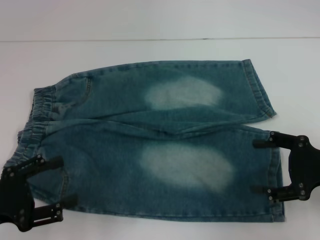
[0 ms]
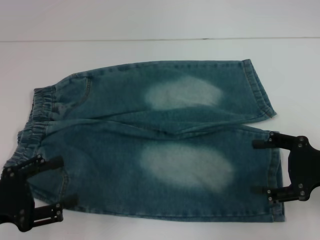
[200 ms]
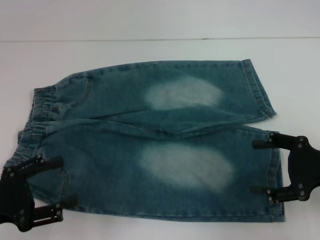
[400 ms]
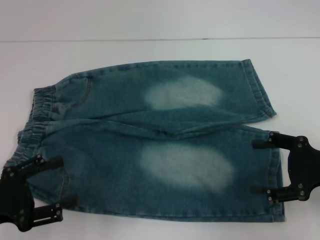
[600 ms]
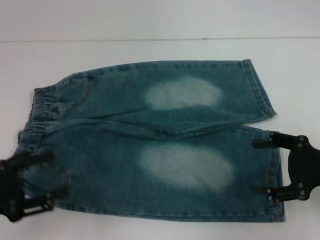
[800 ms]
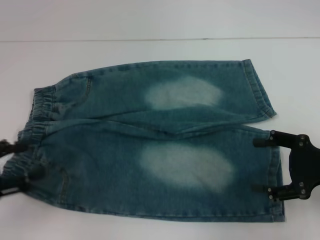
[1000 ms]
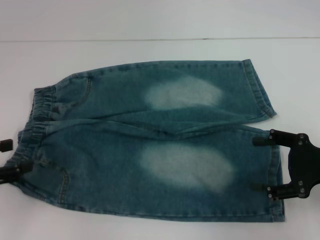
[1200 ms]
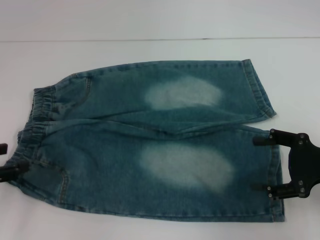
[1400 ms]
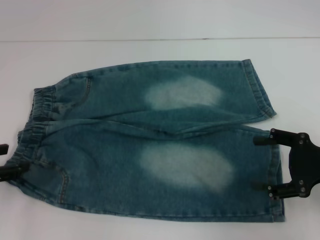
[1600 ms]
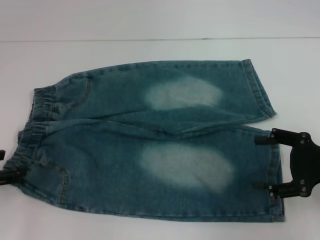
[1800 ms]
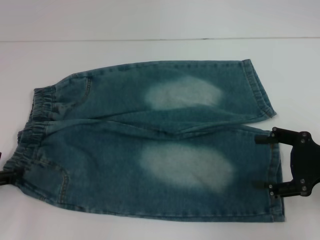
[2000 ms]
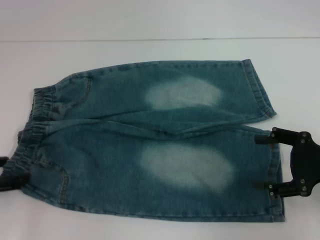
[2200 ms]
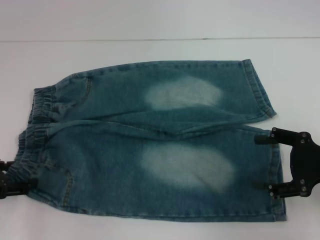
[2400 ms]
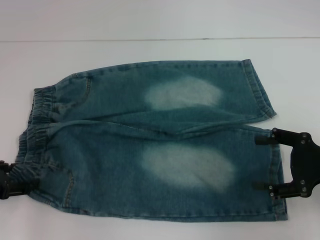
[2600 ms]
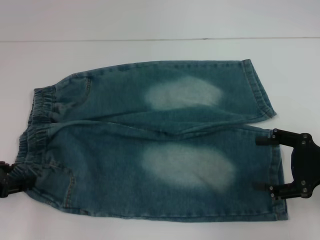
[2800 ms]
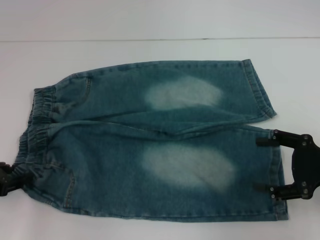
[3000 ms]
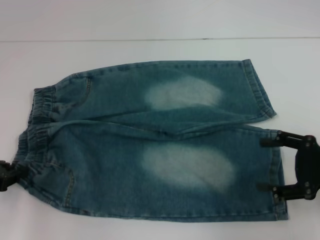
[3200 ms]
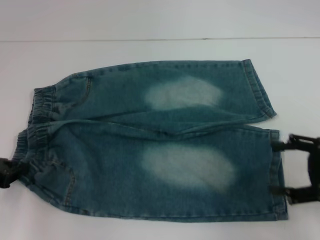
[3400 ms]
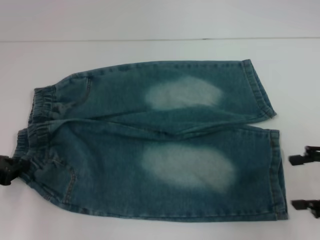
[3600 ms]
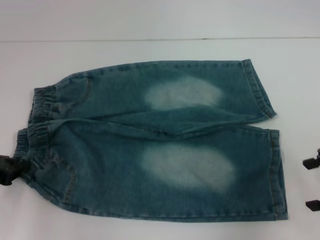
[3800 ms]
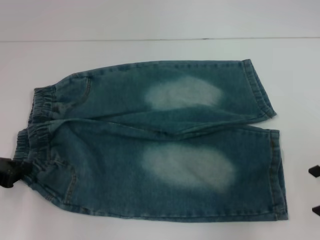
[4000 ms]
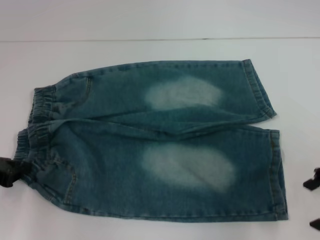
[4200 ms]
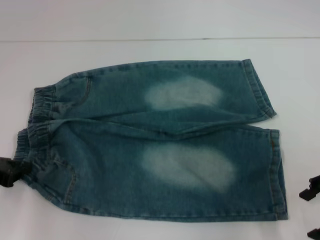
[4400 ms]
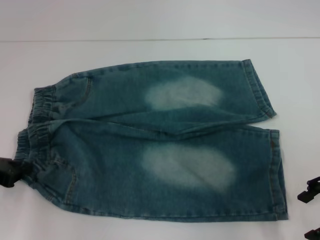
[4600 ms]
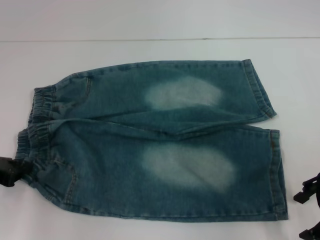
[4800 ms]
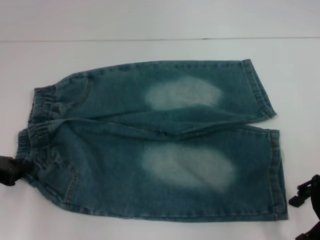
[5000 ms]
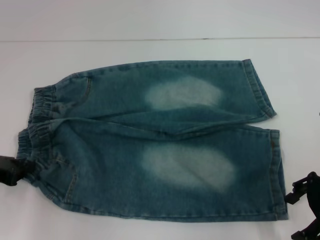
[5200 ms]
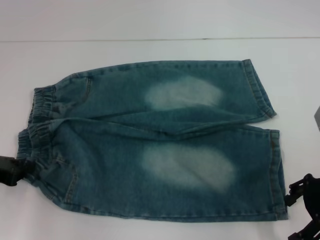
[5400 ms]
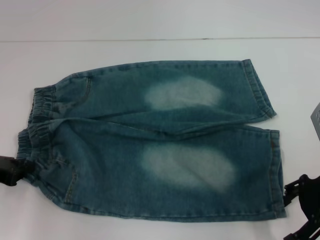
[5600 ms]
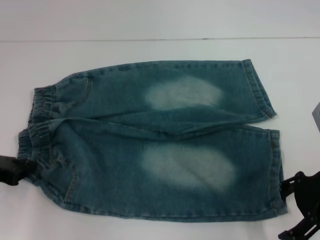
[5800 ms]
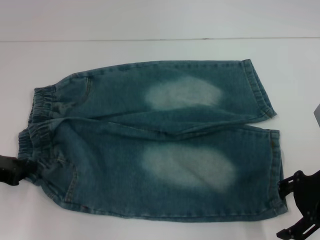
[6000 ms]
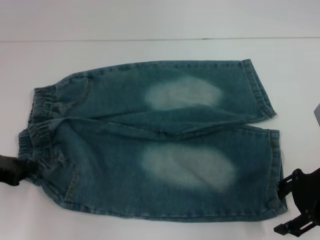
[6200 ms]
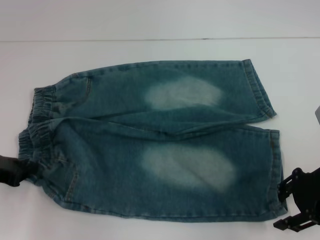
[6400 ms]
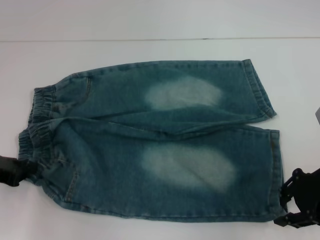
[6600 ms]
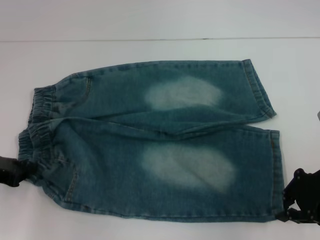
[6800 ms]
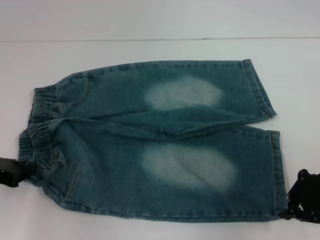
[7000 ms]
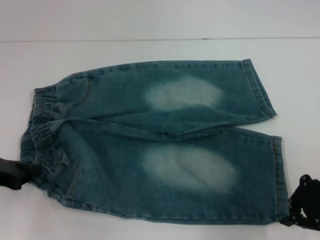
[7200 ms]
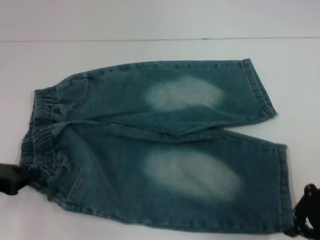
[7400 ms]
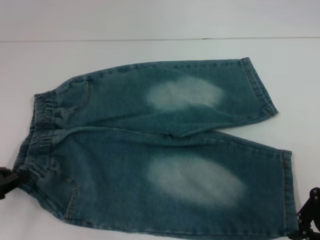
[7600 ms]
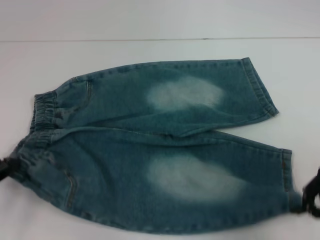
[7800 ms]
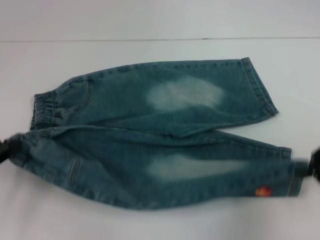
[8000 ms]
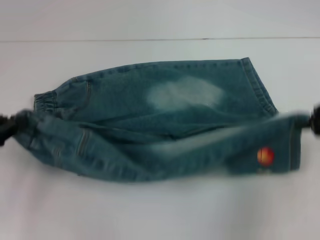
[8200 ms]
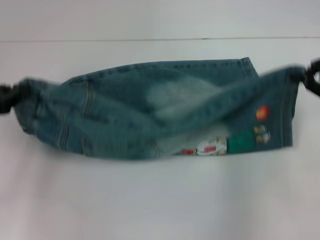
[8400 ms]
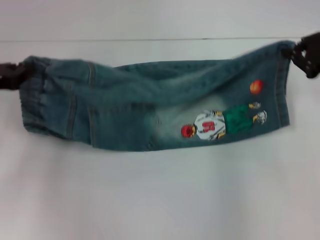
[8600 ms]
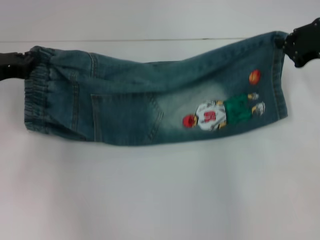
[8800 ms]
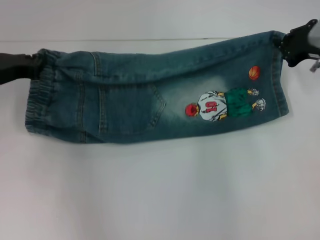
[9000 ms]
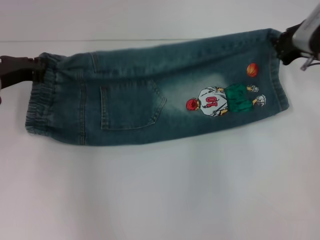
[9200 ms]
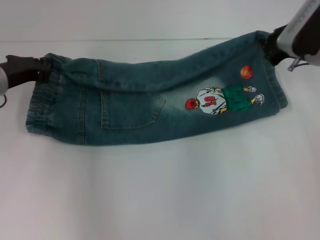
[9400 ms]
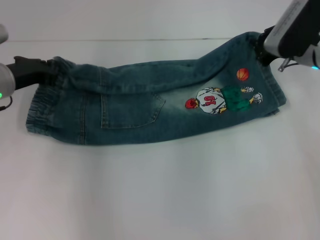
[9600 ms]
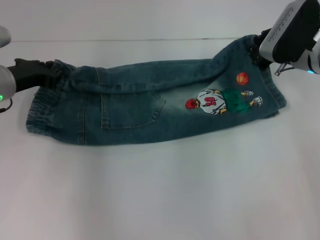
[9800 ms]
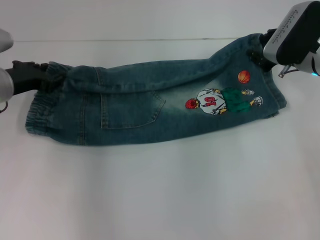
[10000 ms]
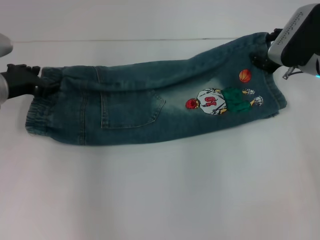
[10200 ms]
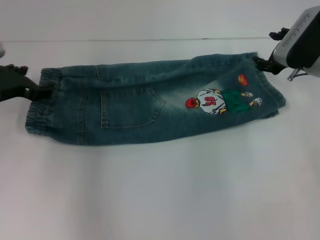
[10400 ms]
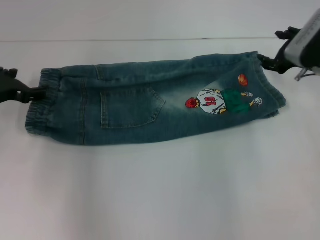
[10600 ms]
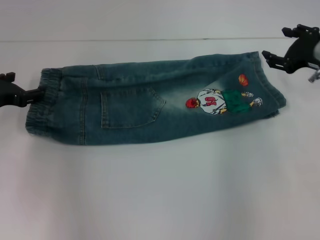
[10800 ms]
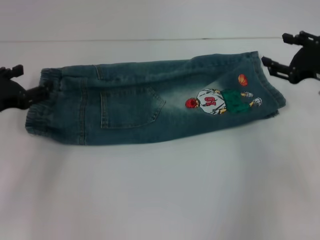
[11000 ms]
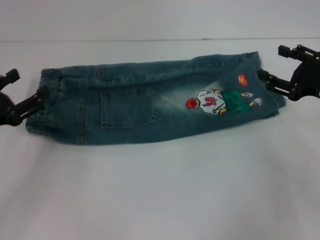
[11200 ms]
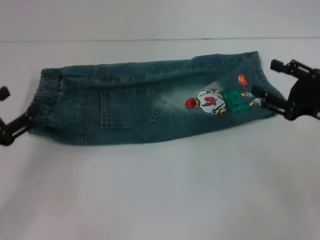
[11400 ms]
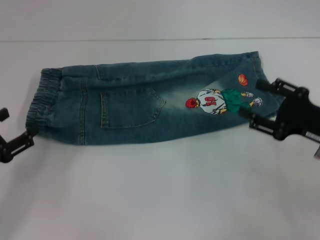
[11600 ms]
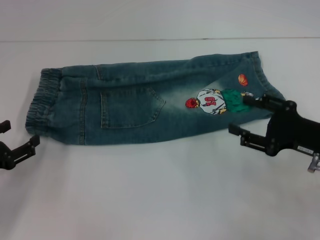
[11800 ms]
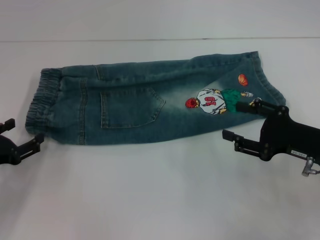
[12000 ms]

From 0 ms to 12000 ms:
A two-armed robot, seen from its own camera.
Step, from 0 ms to 3600 ms: Hold the lower left waistband with your left hand.
Step, from 3800 ms to 7200 ms: Grab the lower right pant leg with your right hand.
Step, from 7400 ms to 10000 ms: Fold upward with your left hand.
From 0 ms to 1600 ms: The left gripper is displaced forward by roughly 5 cm.
From 1600 ms to 3000 ms: The grippers make only small movements.
From 3000 ms to 4400 ms: The left gripper closes, while the right gripper moves roughly 5 cm.
From 4400 ms to 6000 ms: There are only small adjustments of the grippers.
From 6000 ms to 7600 ms: The right gripper shifts by approximately 5 cm, and closes its fingers.
From 7600 ms to 9000 ms: Both grippers travel together forward, roughly 15 cm.
From 9000 ms to 10400 ms: The right gripper opens its fingers. The left gripper opens its fingers.
From 10400 ms to 12000 ms: The left gripper shifts some 15 cm backward and downward, while the right gripper shifts approximately 15 cm backward.

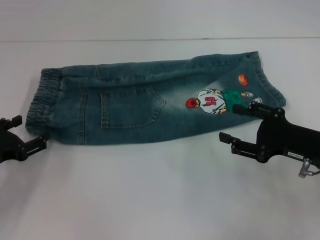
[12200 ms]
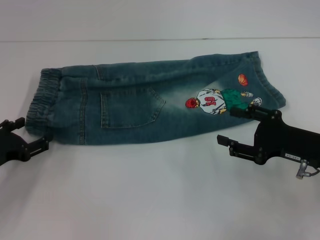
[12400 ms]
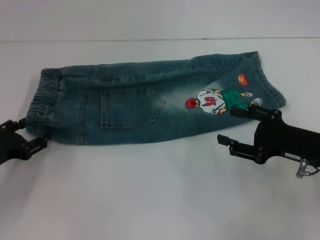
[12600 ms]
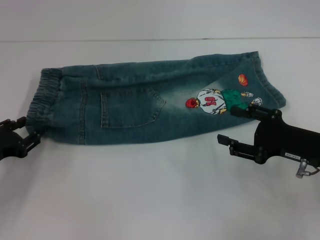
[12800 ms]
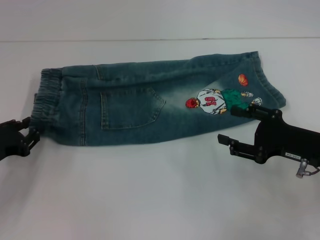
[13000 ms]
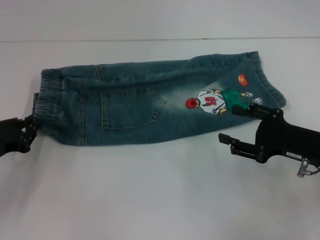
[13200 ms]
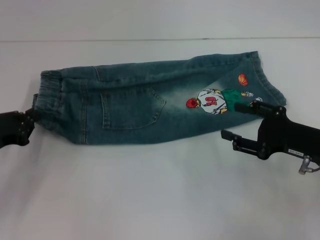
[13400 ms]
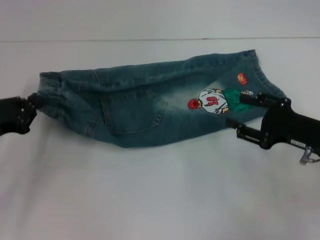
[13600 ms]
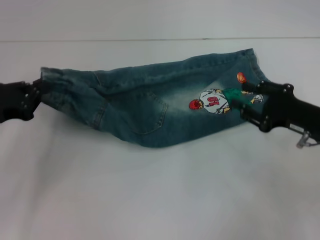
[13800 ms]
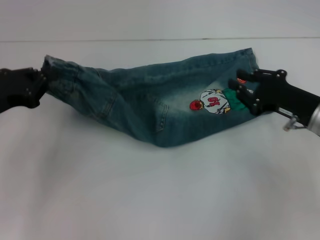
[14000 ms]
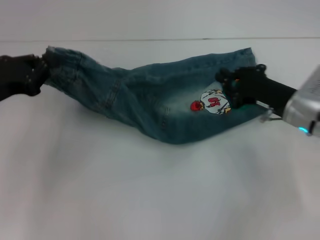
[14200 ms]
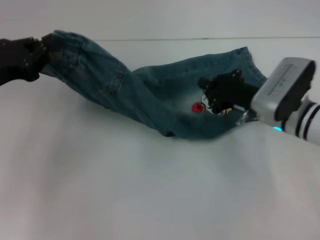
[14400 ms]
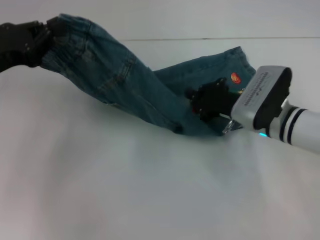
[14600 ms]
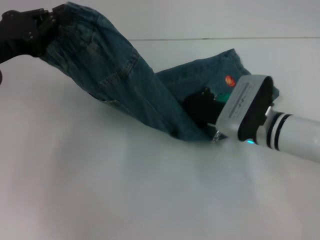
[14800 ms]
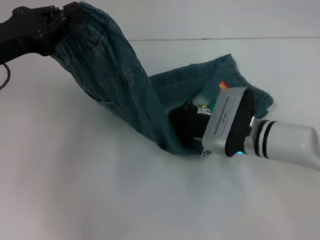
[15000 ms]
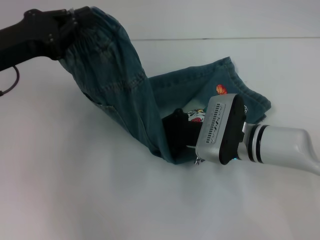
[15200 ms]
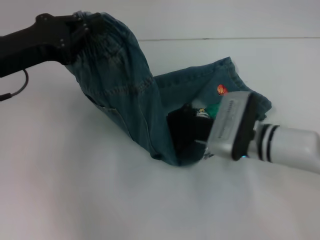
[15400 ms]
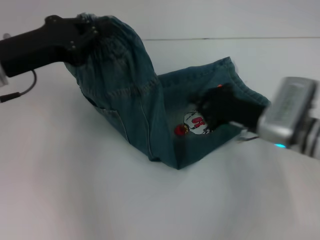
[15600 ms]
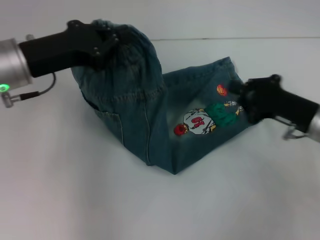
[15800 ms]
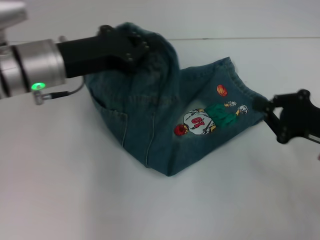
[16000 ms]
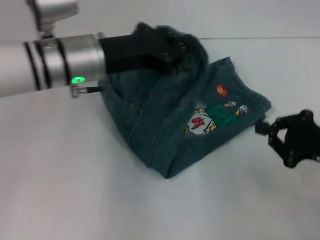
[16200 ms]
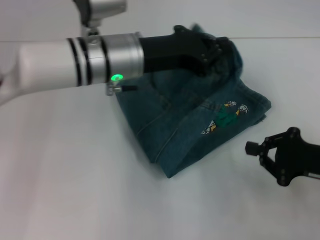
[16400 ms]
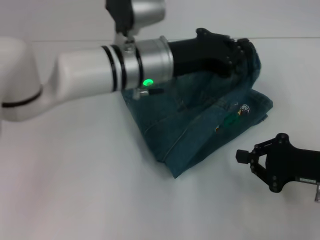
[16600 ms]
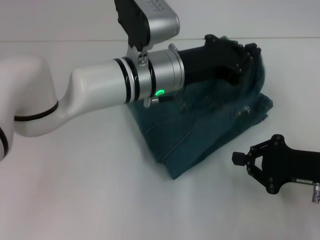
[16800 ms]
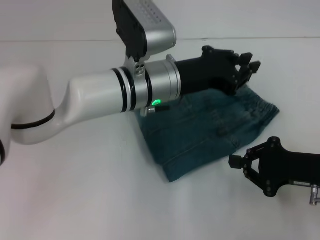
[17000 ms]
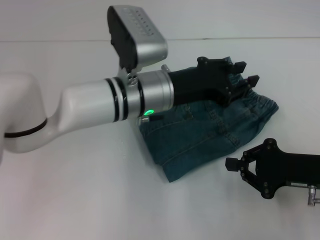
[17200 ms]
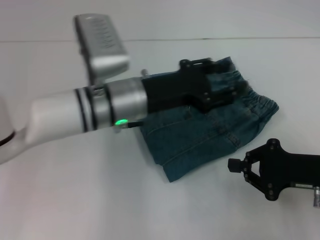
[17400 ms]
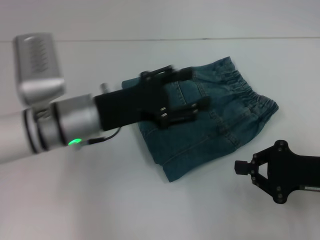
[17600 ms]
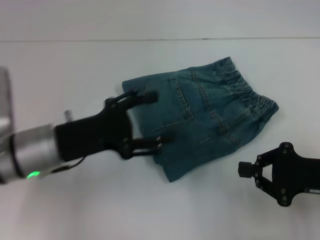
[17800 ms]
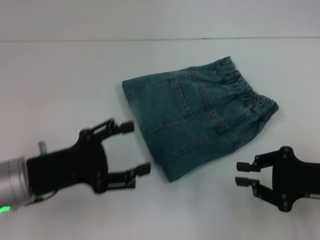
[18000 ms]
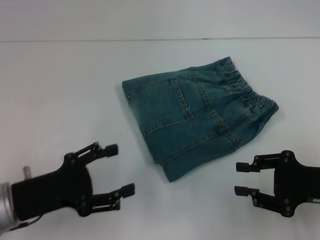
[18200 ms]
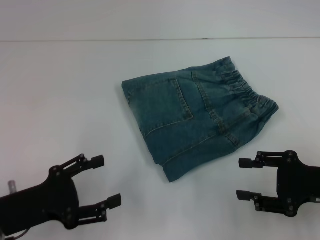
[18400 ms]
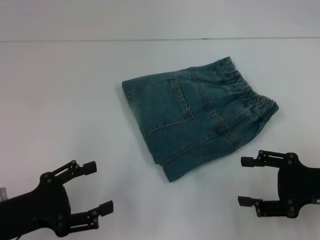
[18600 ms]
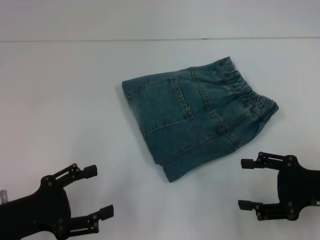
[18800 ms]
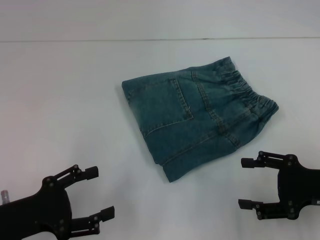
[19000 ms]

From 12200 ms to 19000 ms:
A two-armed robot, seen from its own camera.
Step, from 13200 ms to 15200 ms: Press the middle of the pants with your right hand.
Step, from 15400 ms to 17000 ms: Fold to the right with your left hand.
From 12200 ms to 13600 ms: The left gripper closes up.
From 13600 ms to 15000 ms: The left gripper moves upward and to the right, about 10 cm. The right gripper is displaced to the left by roughly 15 cm, and closes its fingers.
From 15000 ms to 16200 ms: The left gripper shifts some 15 cm to the right; the right gripper moves to the right and backward, about 20 cm.
From 16200 ms to 17600 ms: The left gripper is displaced downward by about 5 cm, reaches approximately 10 cm to the right, then returns, and opens its fingers.
From 17600 ms to 19000 ms: The right gripper opens. The left gripper goes roughly 20 cm to the left, backward and downward.

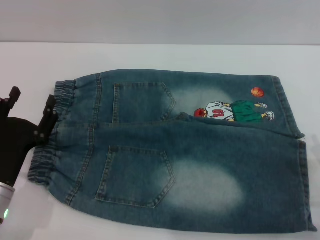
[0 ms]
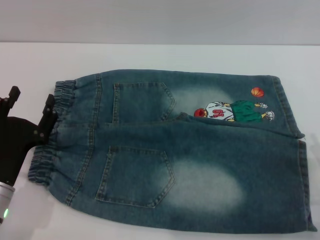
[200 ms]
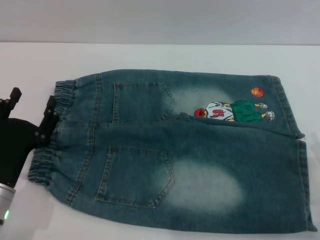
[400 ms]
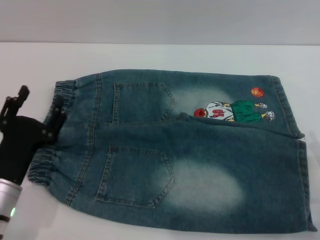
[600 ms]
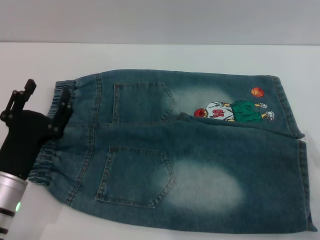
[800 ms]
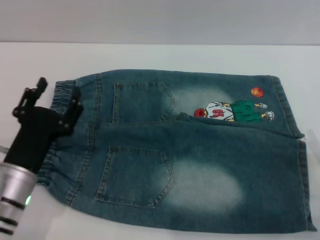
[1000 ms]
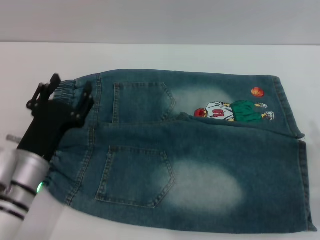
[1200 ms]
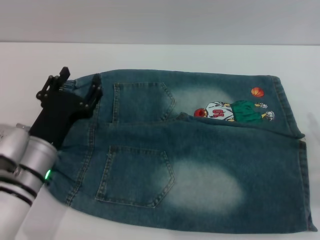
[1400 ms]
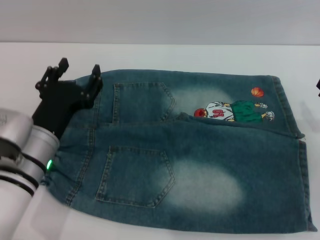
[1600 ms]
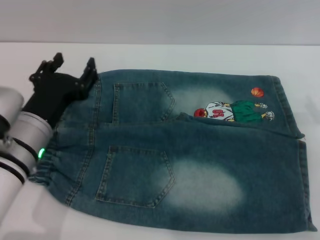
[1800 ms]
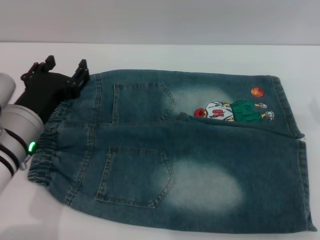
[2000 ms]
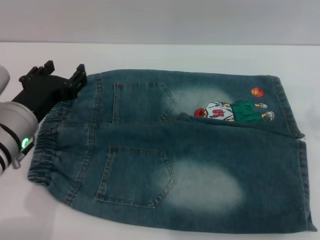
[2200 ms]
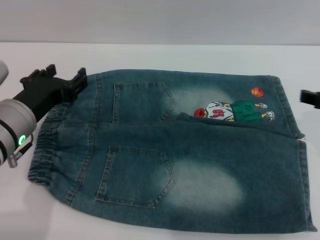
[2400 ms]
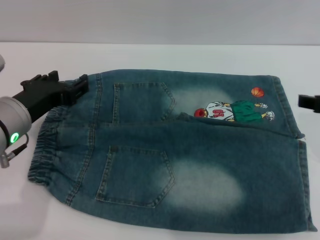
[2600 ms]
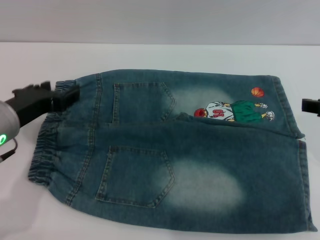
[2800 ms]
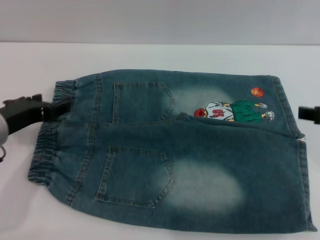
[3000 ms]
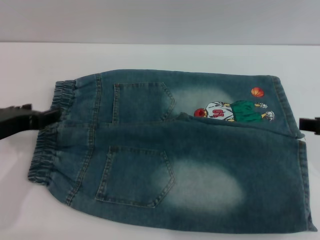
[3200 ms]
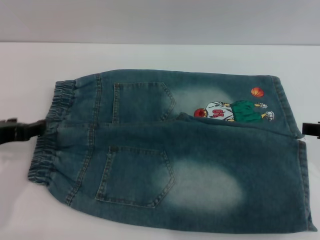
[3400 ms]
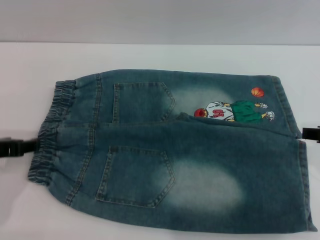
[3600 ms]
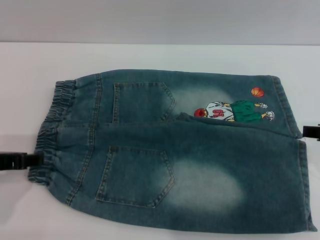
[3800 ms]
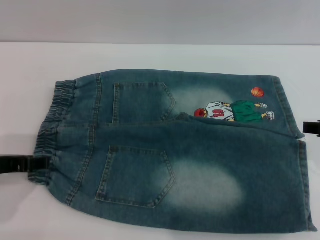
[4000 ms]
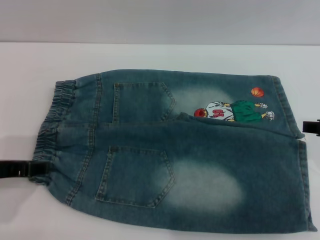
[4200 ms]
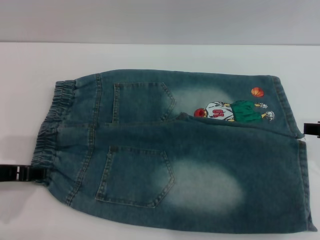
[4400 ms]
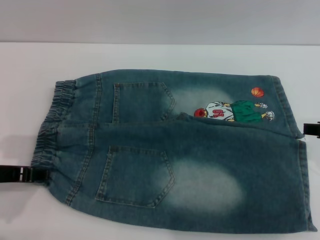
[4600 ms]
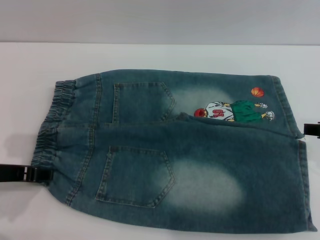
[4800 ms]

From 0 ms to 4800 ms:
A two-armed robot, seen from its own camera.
From 0 ms to 1600 ms: The right gripper shifts roughly 10 cm forward. The left gripper moves to the right and forward, roughly 10 cm.
From 1600 ms to 3200 ms: The left gripper goes about 10 cm to the left and upward. The right gripper shifts roughly 15 cm upward and to the left.
